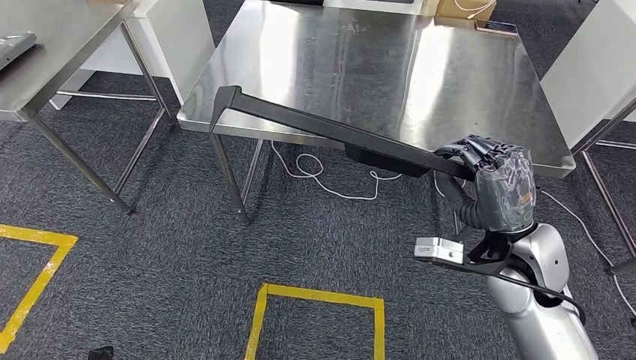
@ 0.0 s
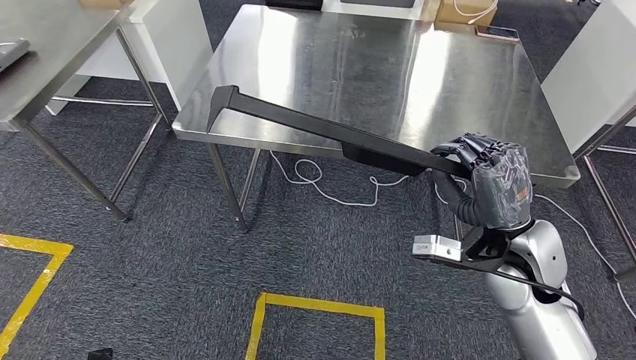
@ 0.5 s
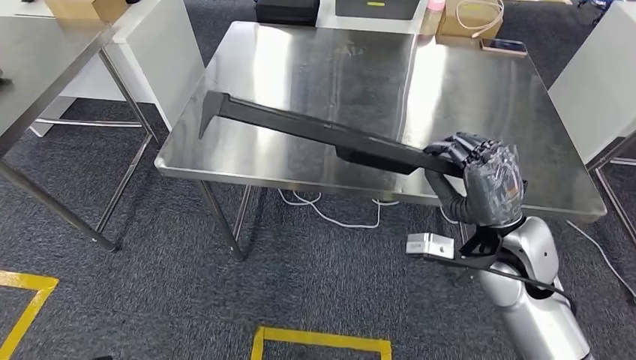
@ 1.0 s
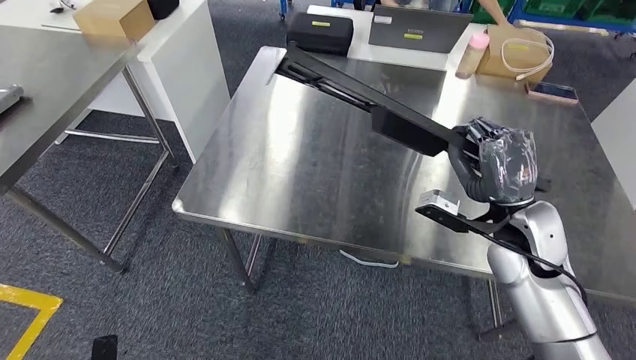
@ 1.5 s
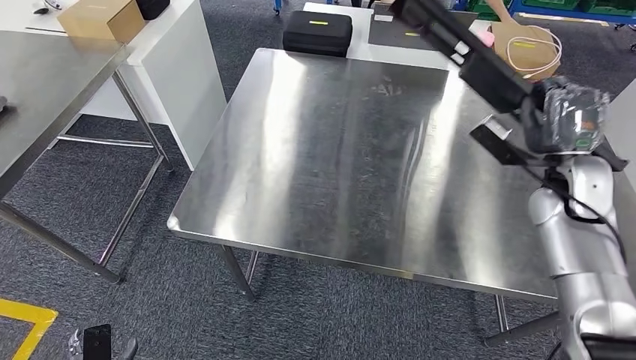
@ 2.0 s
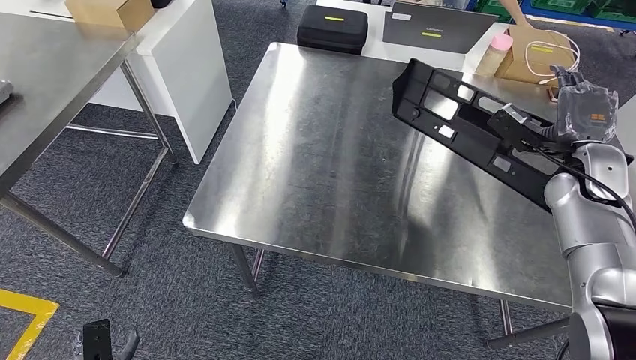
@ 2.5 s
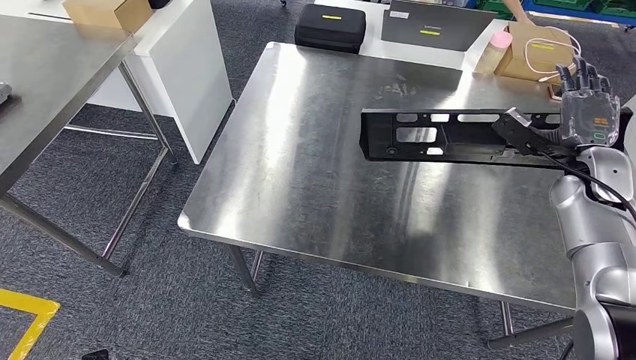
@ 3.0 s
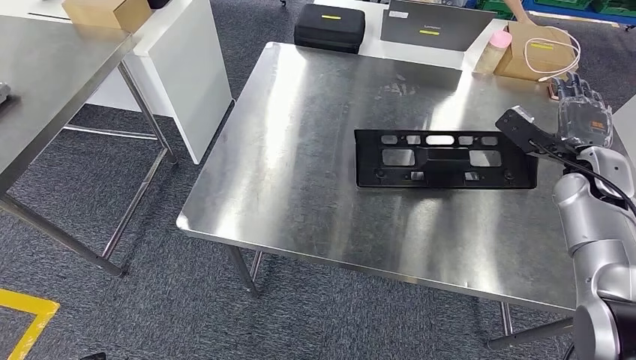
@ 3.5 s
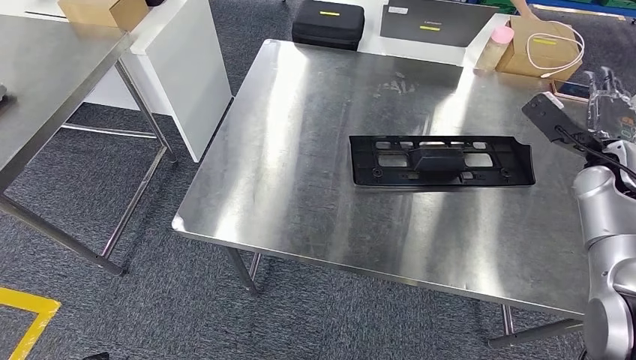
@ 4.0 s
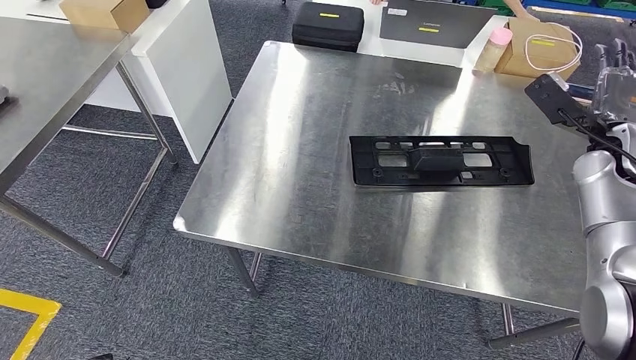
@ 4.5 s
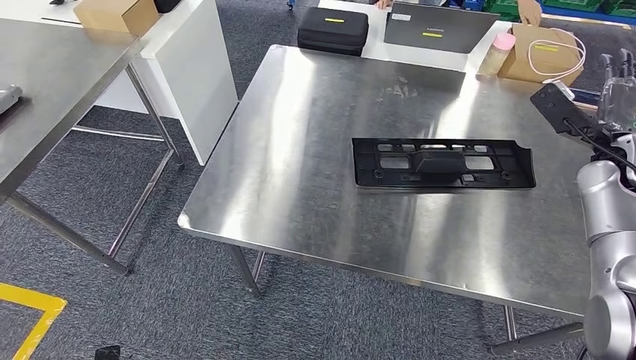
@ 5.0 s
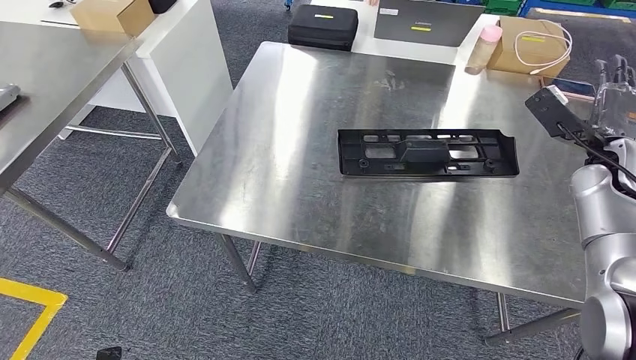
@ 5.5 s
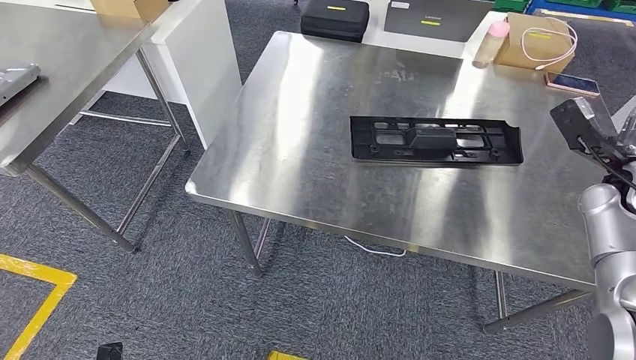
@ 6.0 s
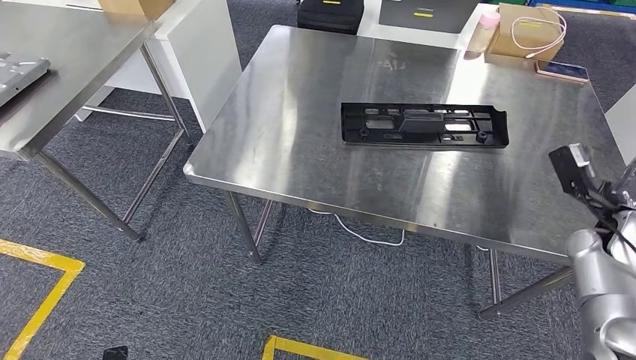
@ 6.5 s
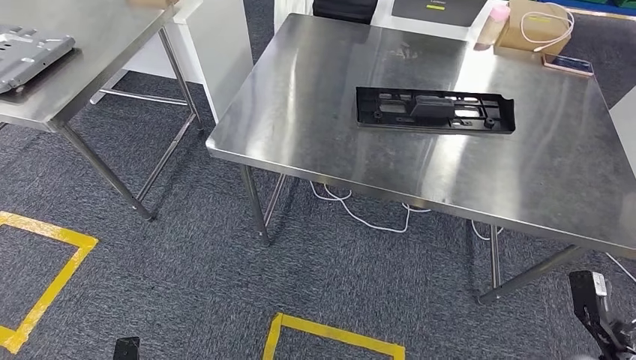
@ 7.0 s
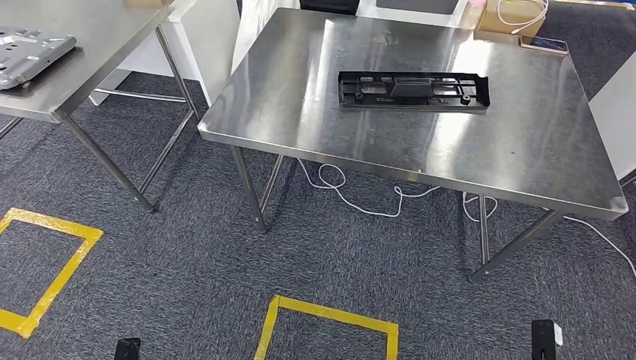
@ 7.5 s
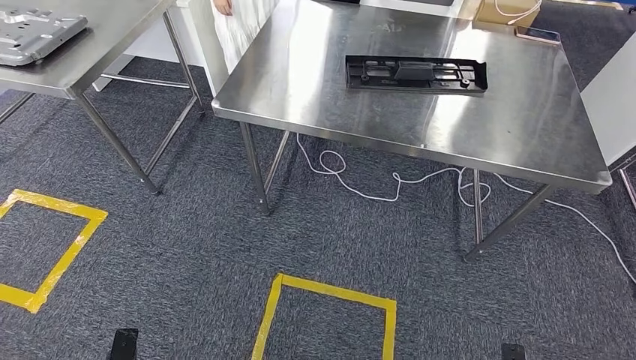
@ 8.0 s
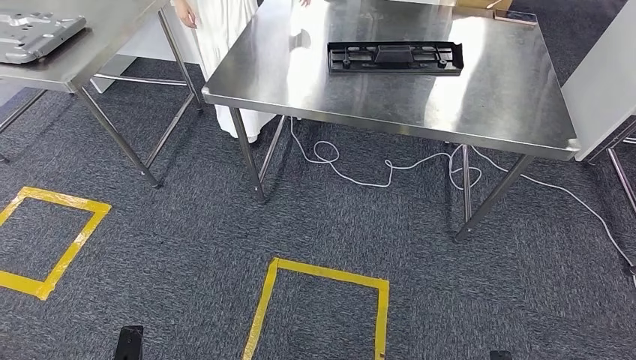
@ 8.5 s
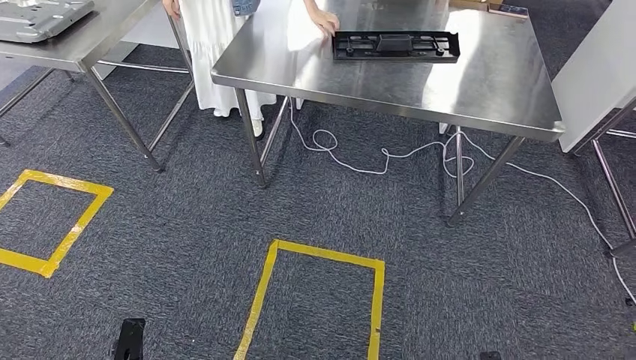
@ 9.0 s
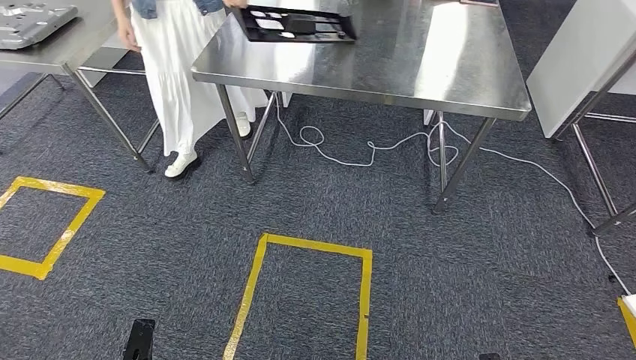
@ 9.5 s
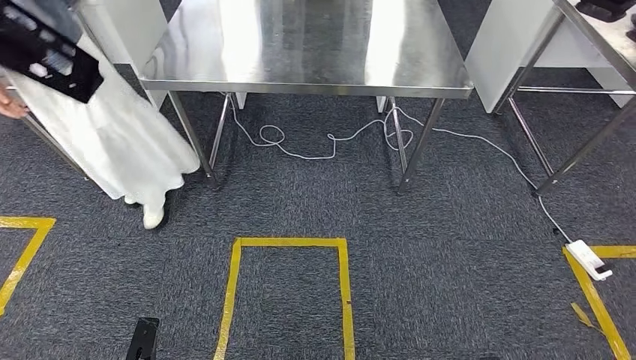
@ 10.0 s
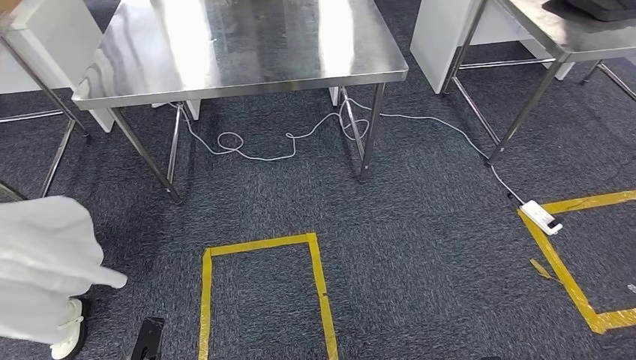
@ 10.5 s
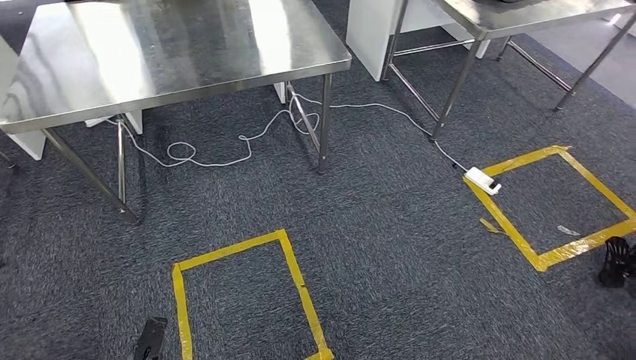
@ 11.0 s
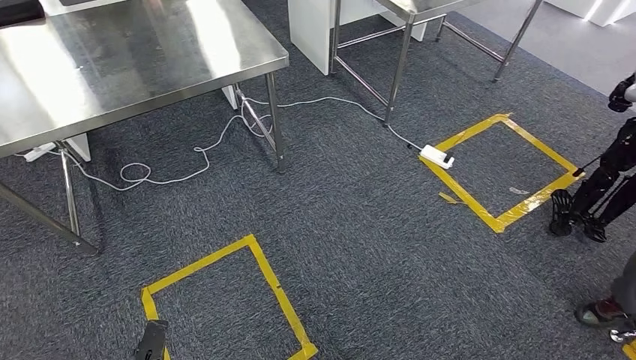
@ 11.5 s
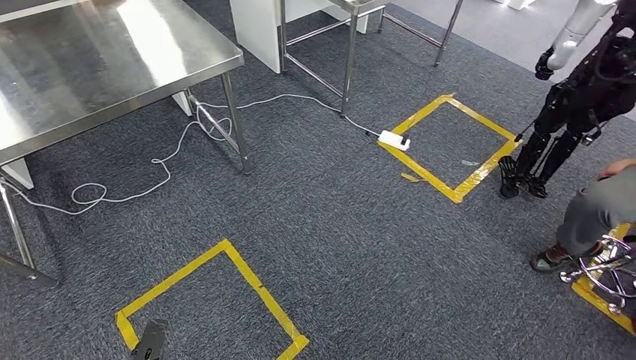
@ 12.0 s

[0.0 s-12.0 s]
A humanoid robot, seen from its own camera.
Step, 0.0 to 5.5 s: Insert the large material into the corresponding slot on the workbench.

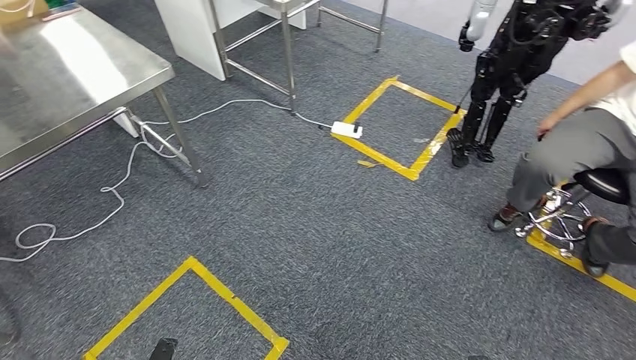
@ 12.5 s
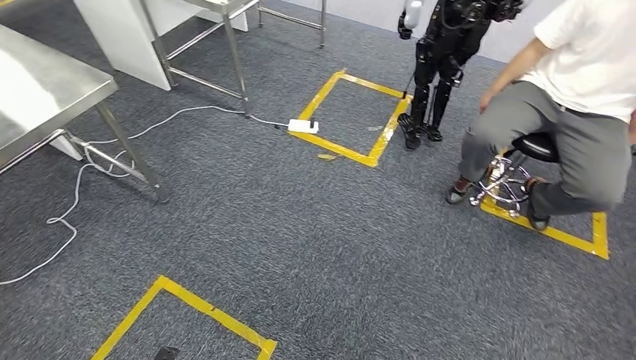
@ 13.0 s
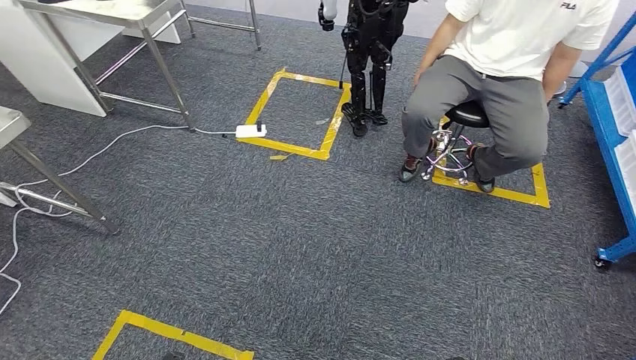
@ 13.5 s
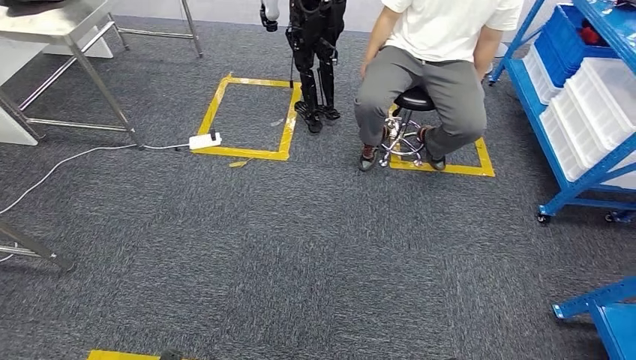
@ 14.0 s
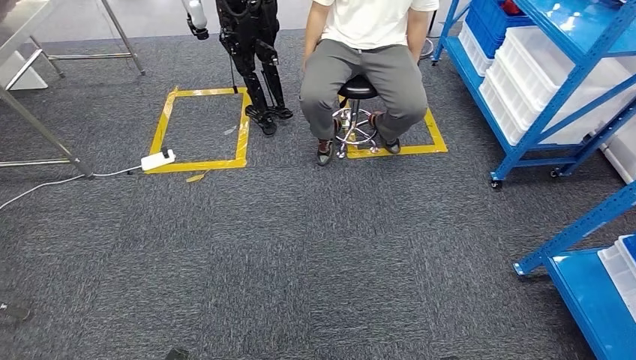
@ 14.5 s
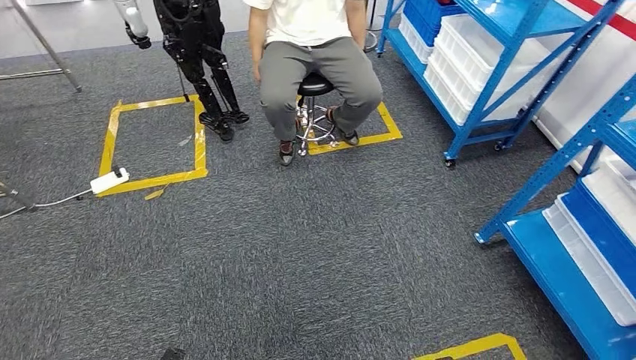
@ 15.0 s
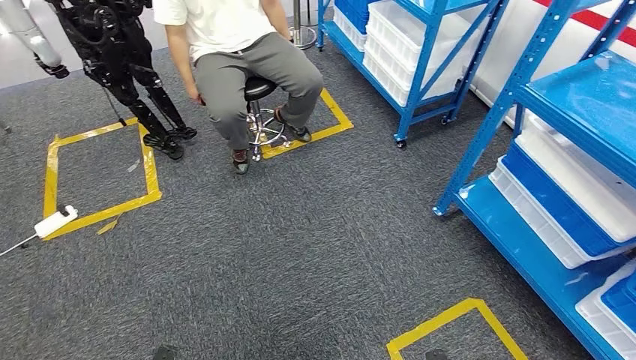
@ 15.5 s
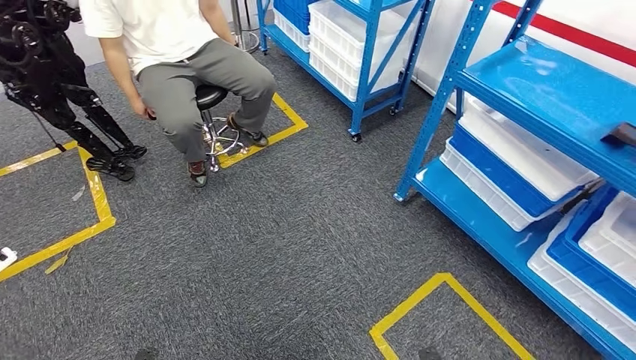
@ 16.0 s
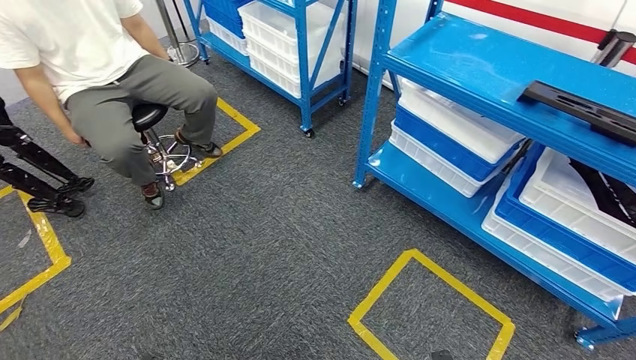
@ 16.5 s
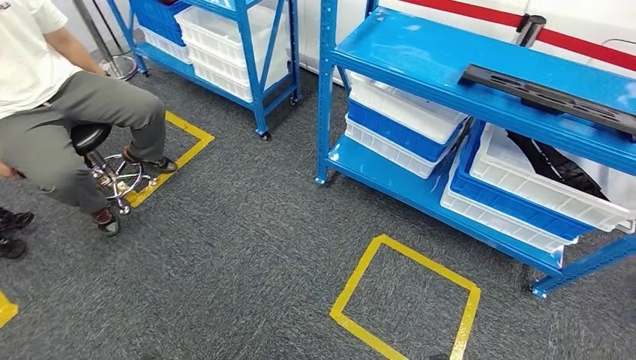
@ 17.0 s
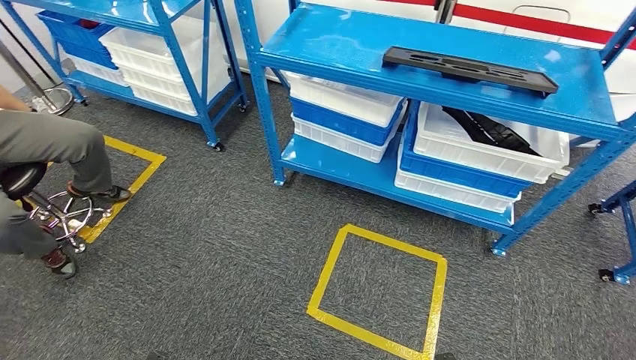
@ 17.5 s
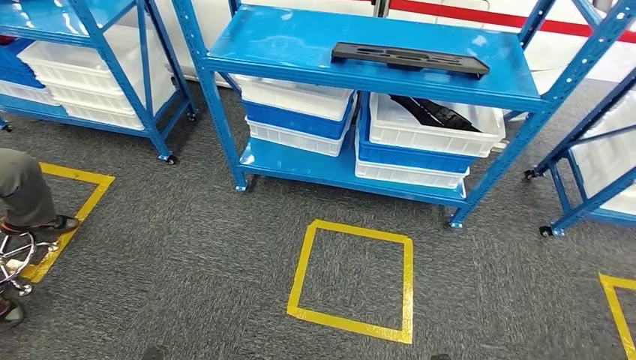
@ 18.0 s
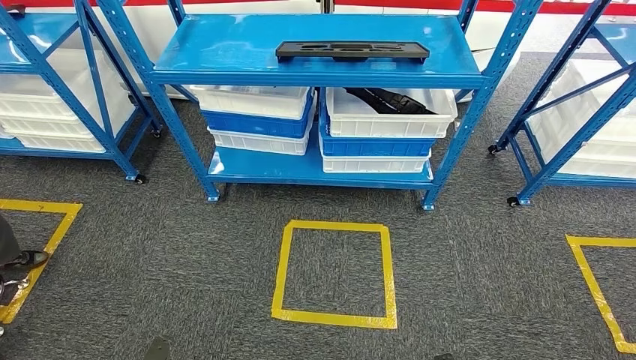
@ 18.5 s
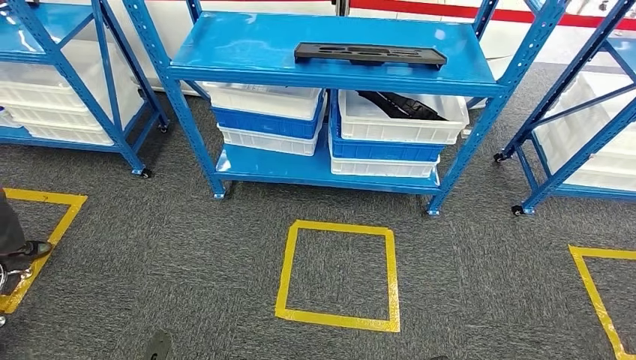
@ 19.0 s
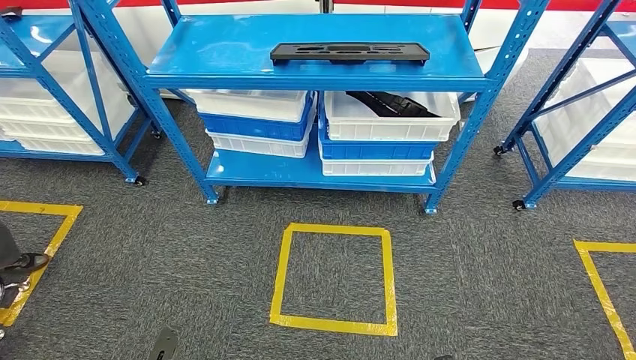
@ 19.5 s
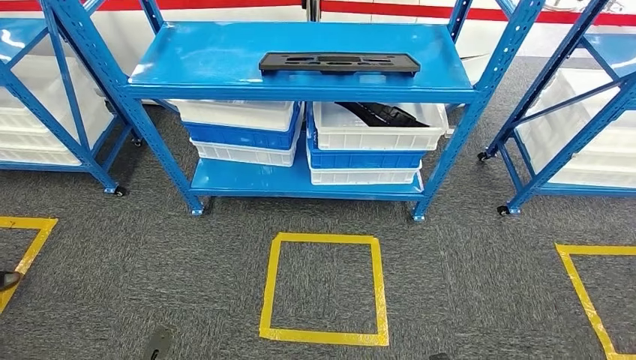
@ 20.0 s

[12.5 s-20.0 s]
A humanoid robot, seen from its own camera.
Step, 12.5 to 20.0 s: Return to the initial position at the shelf.
